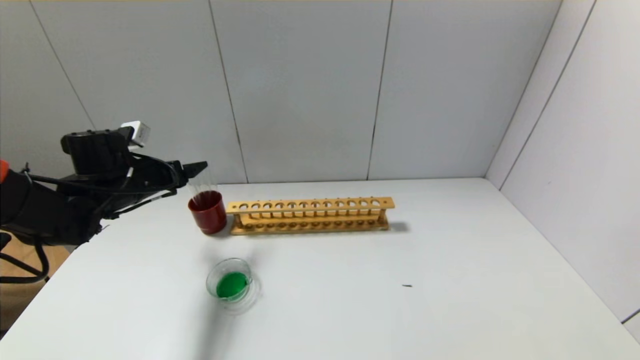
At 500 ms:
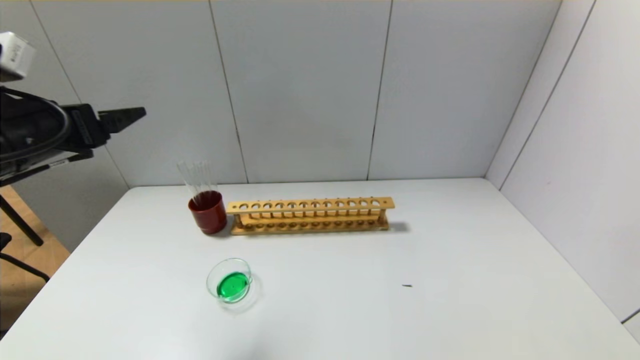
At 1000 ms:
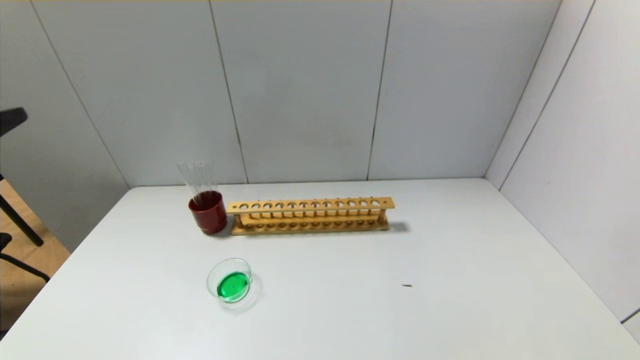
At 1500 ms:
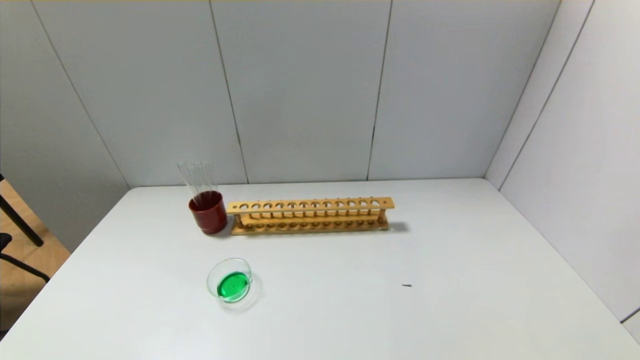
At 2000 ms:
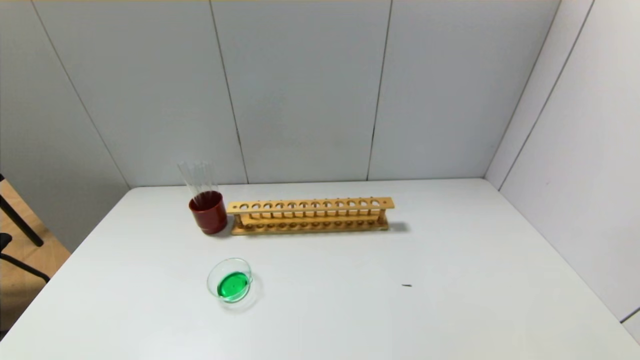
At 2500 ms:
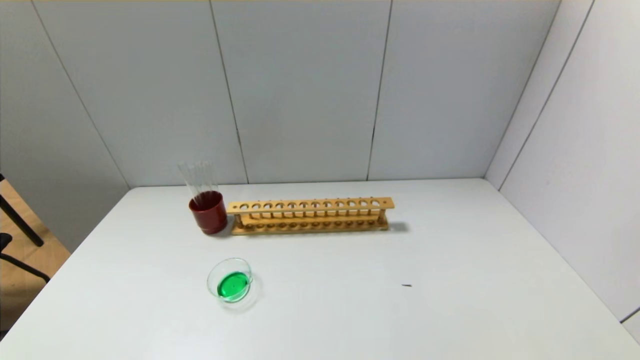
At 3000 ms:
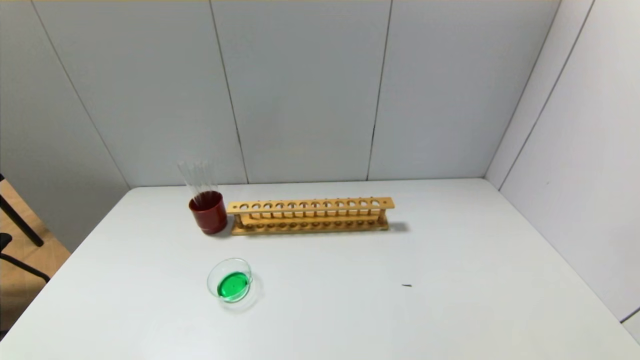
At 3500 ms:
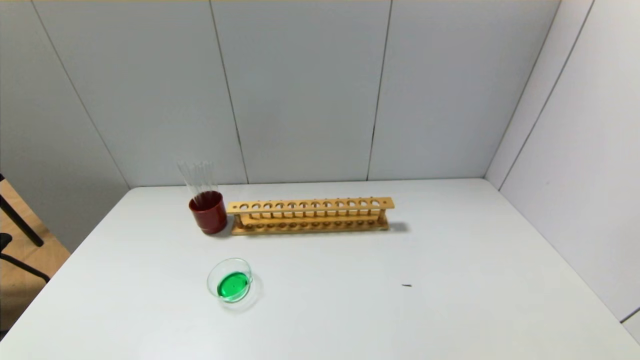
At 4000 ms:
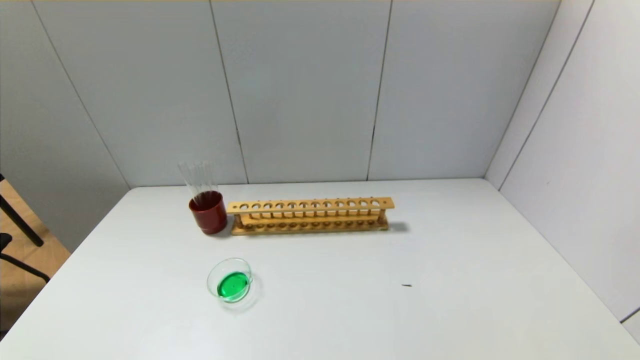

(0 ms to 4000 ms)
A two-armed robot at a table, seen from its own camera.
0 ms - 2000 ms: The left gripper goes approximately 40 cm backward.
